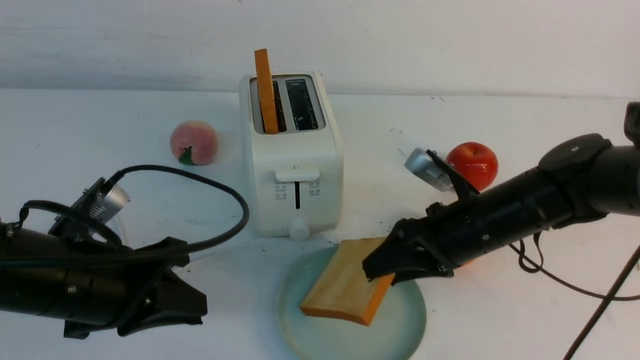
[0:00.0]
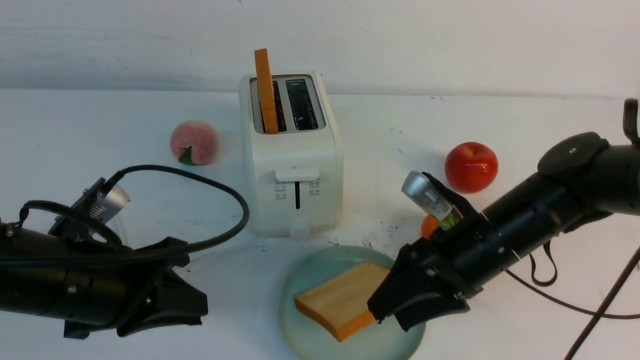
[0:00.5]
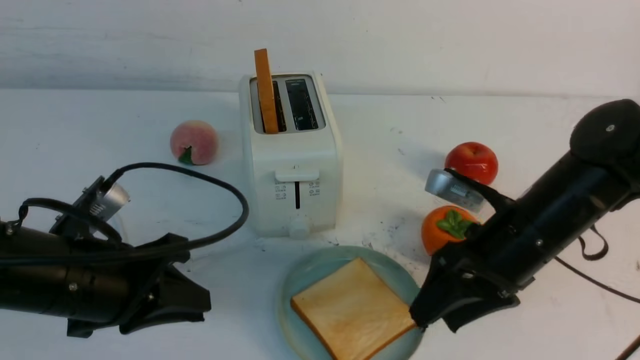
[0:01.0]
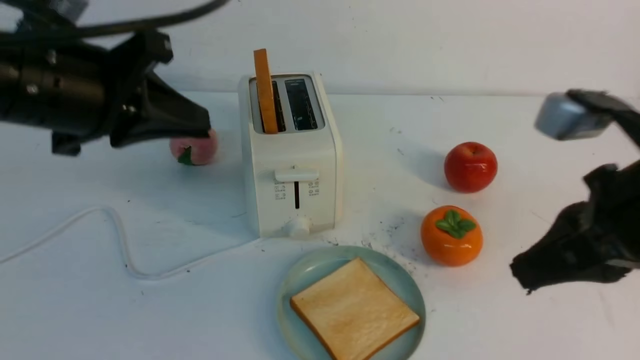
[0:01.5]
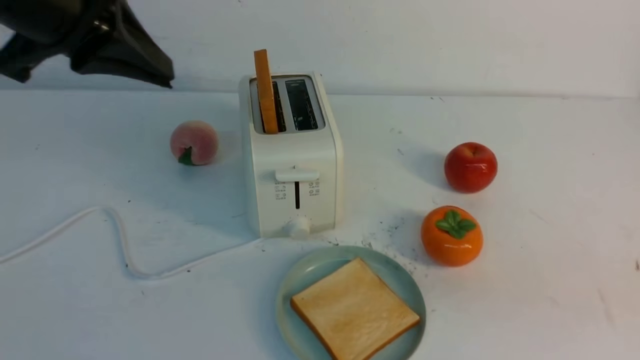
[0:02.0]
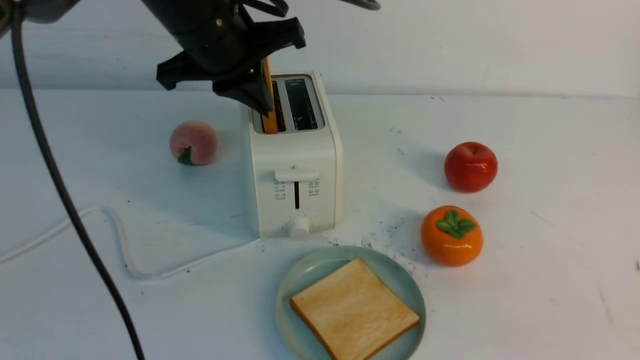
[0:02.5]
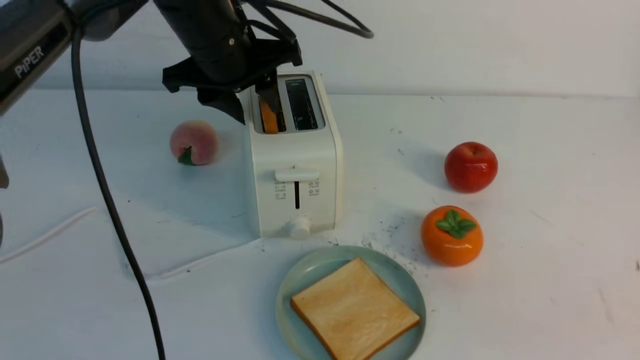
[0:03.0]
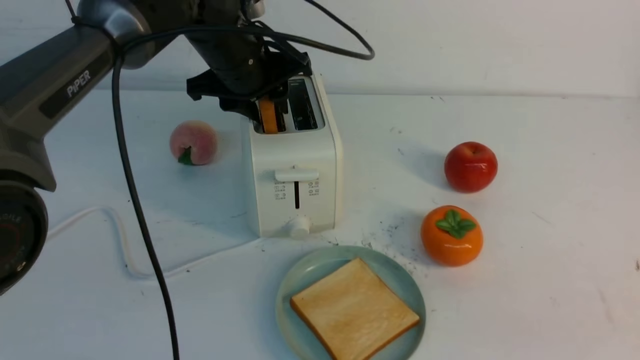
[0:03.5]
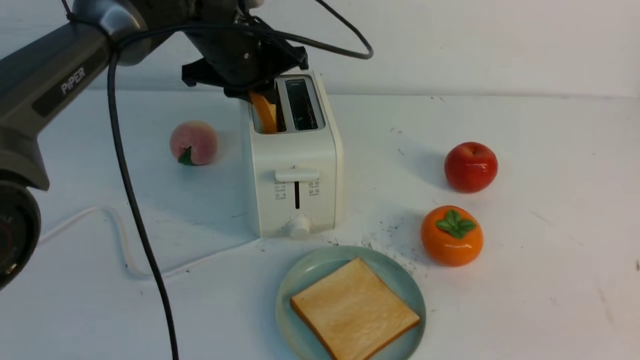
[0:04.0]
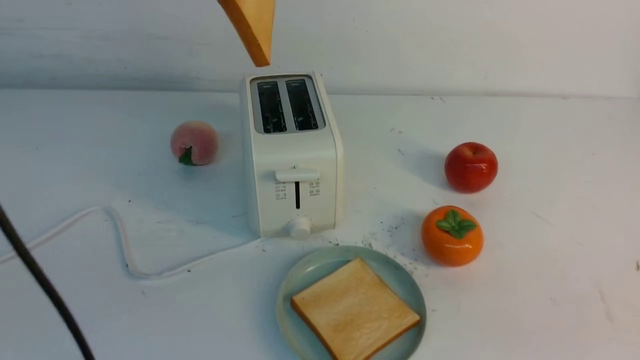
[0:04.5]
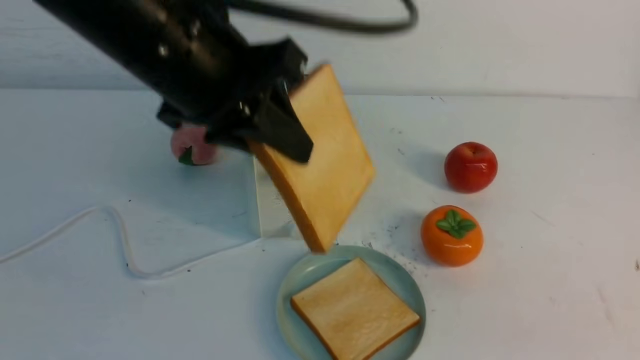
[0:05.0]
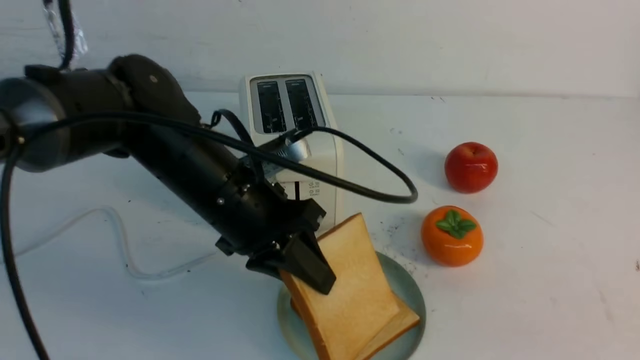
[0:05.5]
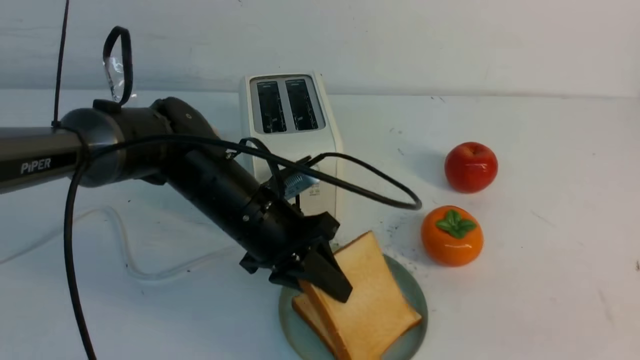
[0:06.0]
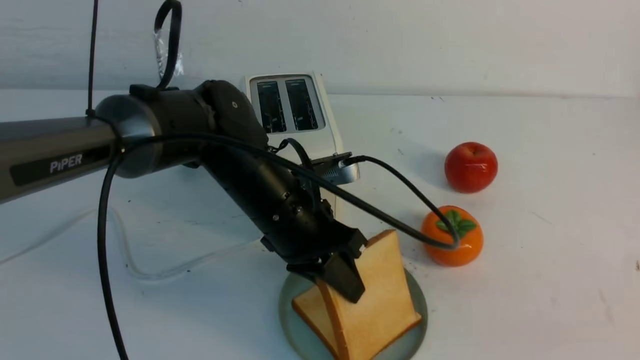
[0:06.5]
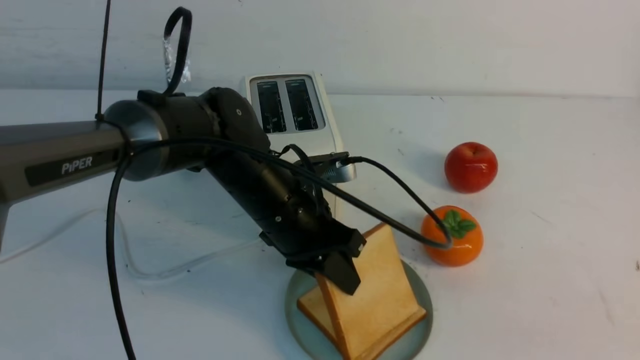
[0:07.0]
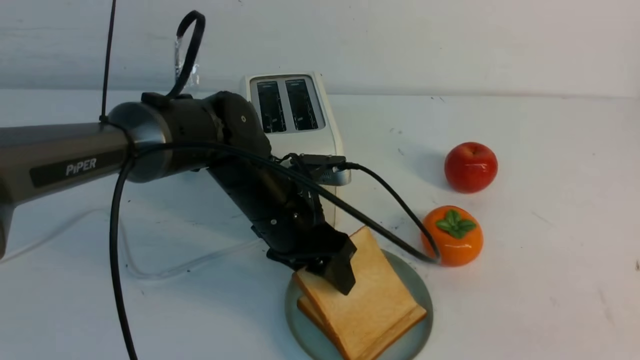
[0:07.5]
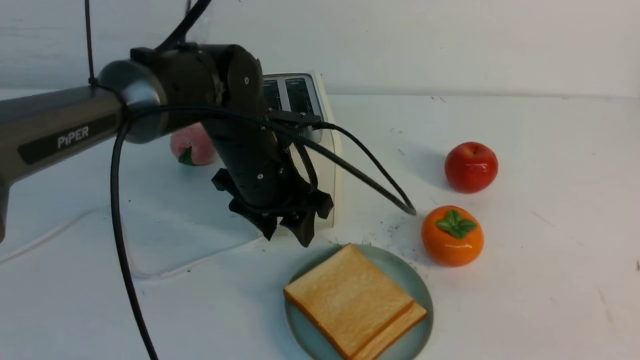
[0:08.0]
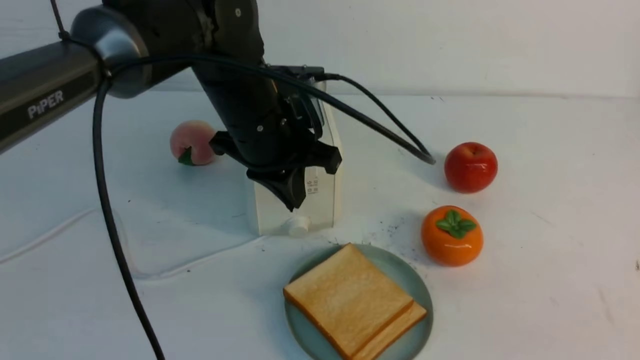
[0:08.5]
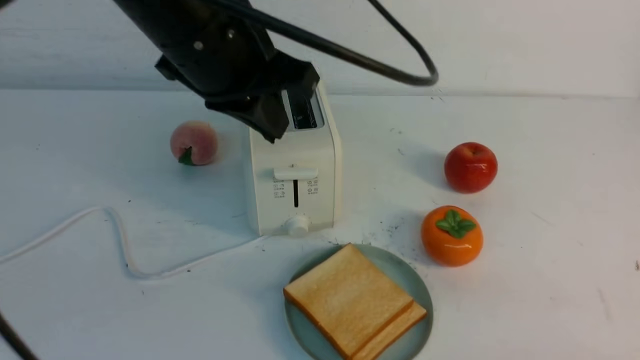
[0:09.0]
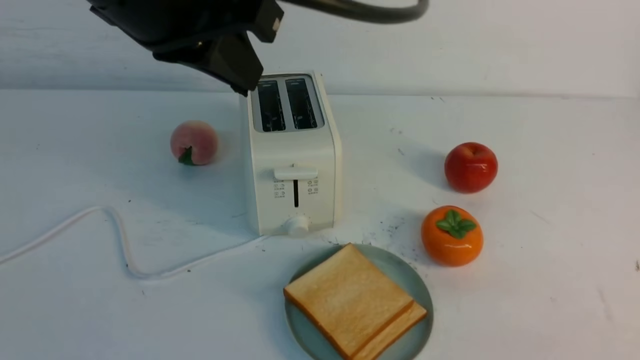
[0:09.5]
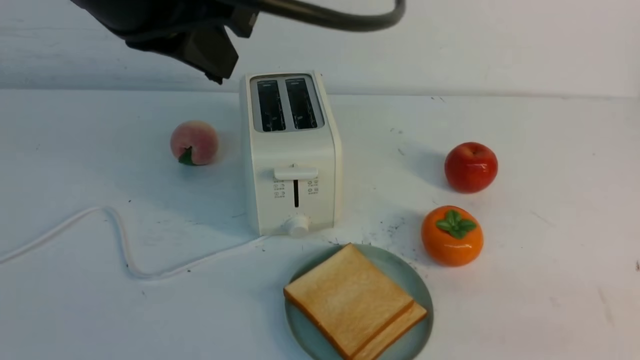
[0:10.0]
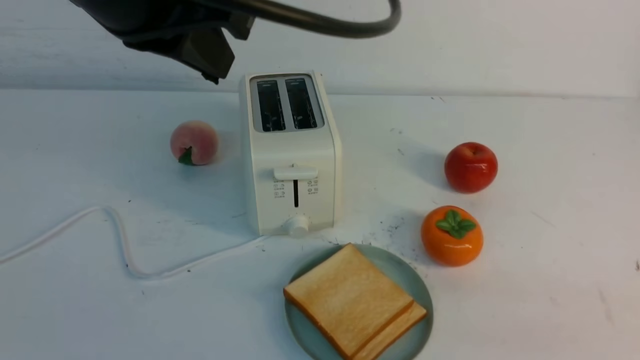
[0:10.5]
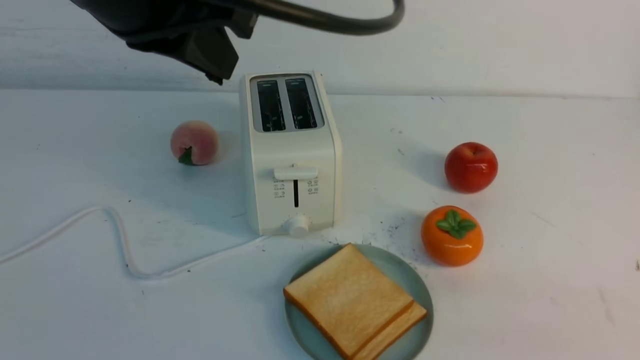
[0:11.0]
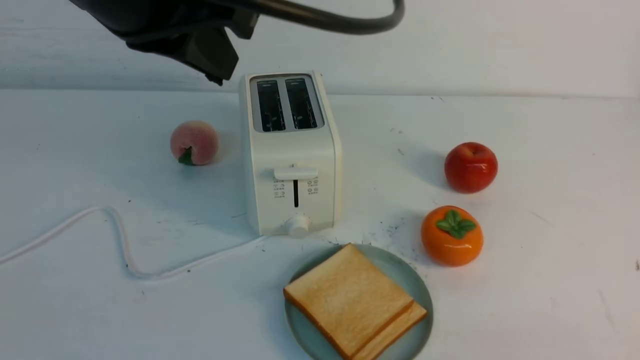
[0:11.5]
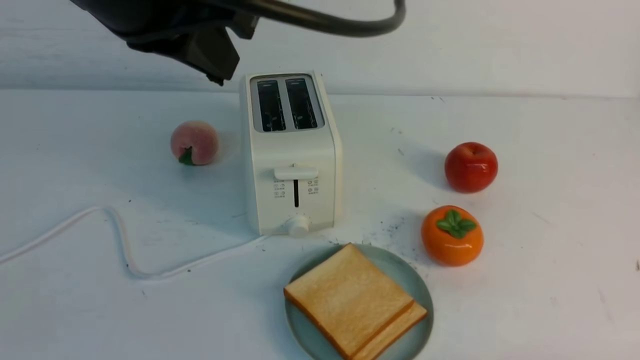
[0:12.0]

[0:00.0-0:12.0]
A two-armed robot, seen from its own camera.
Task of the whole recording: take toasted bread from bread machine on white table place on plate.
Step, 0:01.5 to 0:04.0: use the left arm to take out a slice of bread.
Step, 0:04.5 to 0:07.5: use the left arm to put a slice of bread into the empty plate.
0:00.0 to 0:02.0: The left gripper travels upward and forward by roughly 20 cm, while the right gripper travels backward and upward by some 35 cm, and closes its fingers.
0:02.0 to 0:04.0: The right gripper moves downward, some 5 cm. Meanwhile the left gripper travels forward, to the right and downward by roughly 20 cm, and opens, then closes once more.
0:04.0 to 0:06.0: The left gripper travels downward and backward by about 20 cm.
0:06.0 to 0:08.0: The left gripper opens up.
0:08.0 to 0:10.0: The right gripper travels downward by about 5 cm. Meanwhile the left gripper is displaced upward and backward by roughly 25 cm, and closes.
0:10.0 to 0:12.0: The right gripper goes some 10 cm downward.
